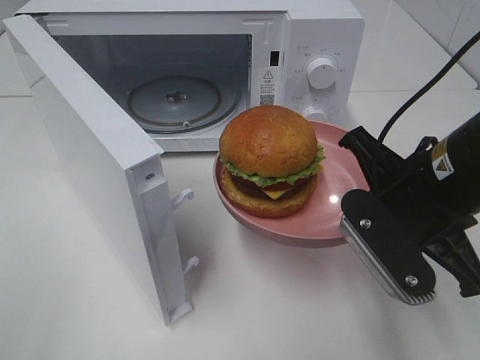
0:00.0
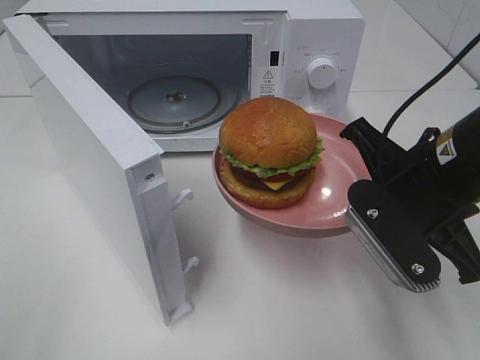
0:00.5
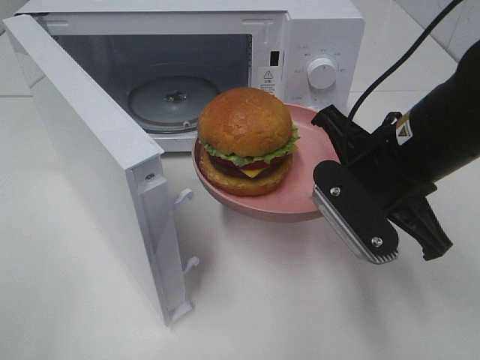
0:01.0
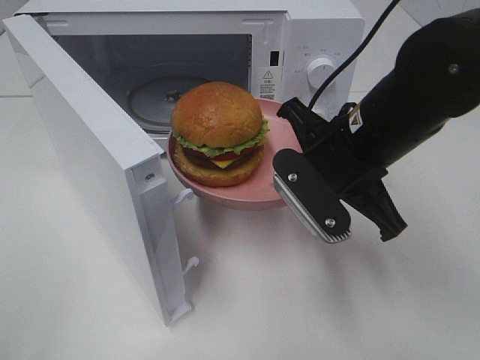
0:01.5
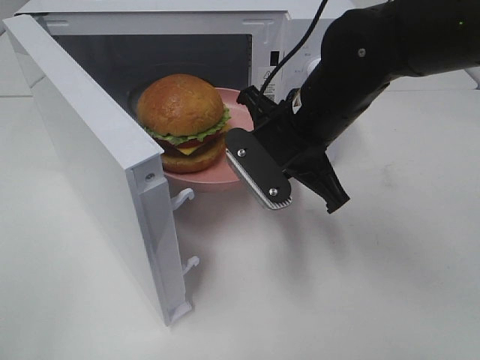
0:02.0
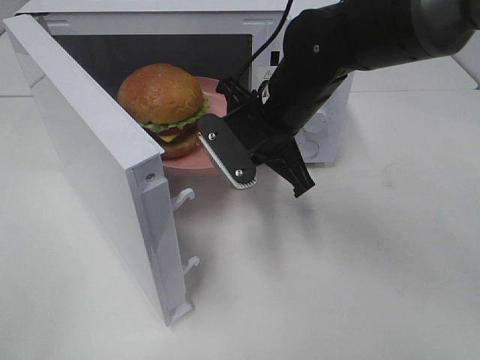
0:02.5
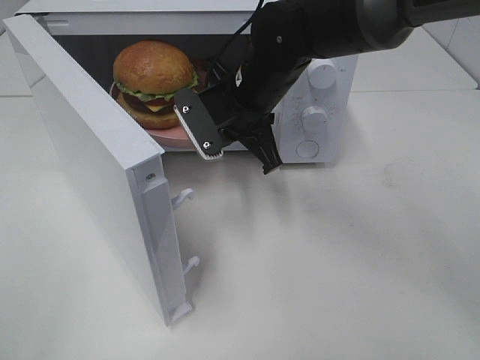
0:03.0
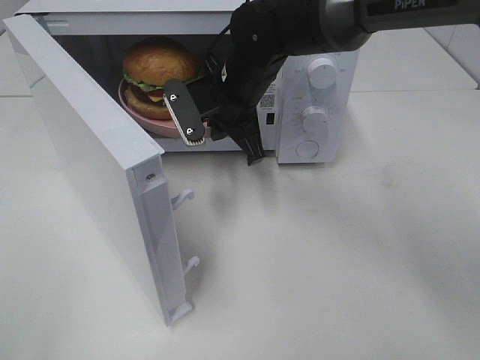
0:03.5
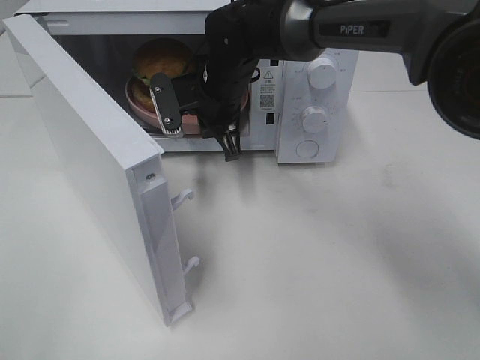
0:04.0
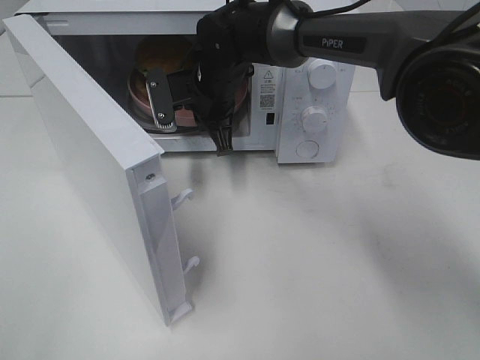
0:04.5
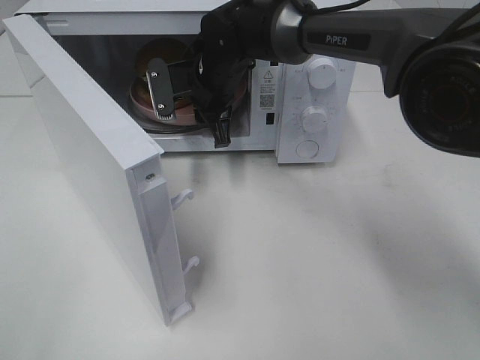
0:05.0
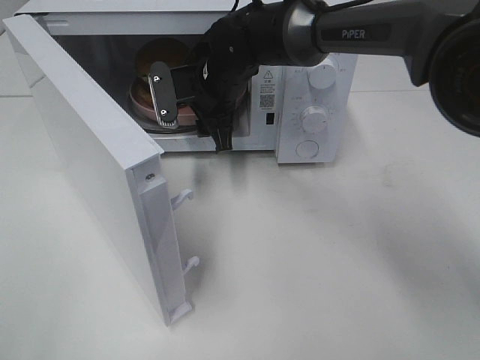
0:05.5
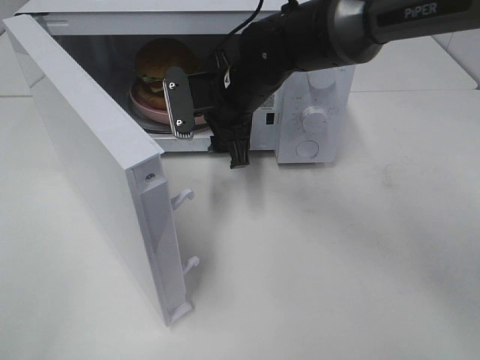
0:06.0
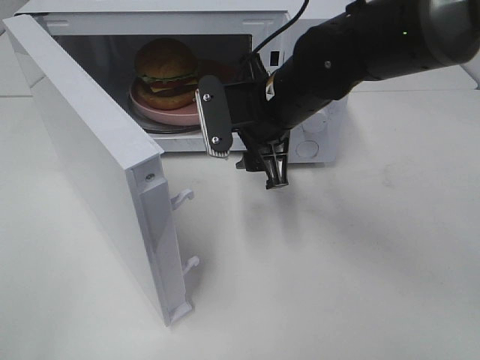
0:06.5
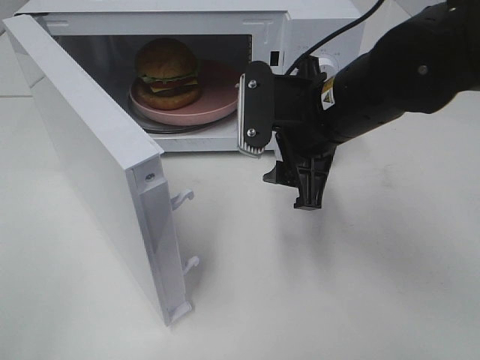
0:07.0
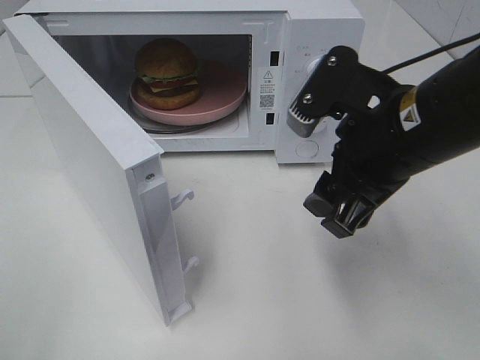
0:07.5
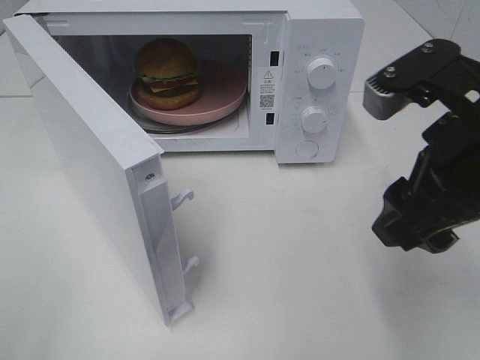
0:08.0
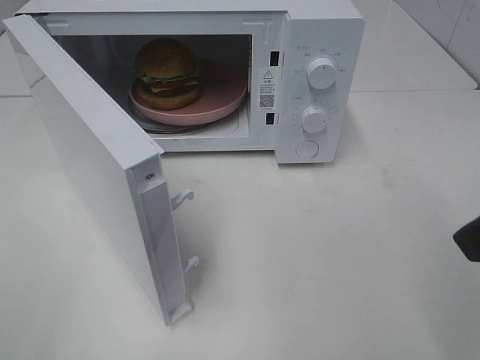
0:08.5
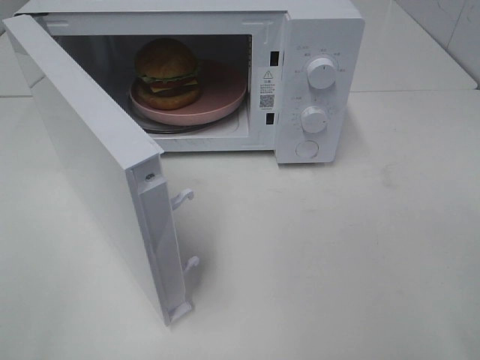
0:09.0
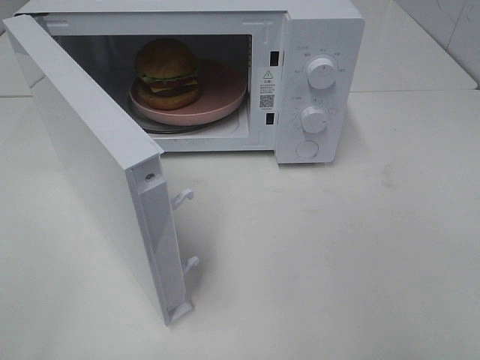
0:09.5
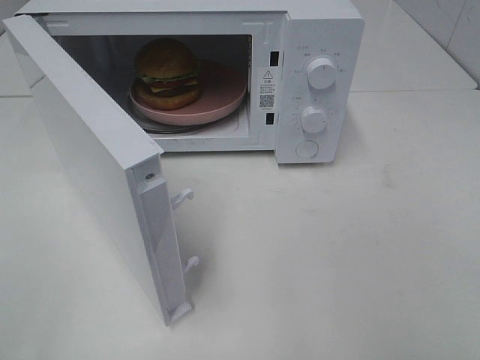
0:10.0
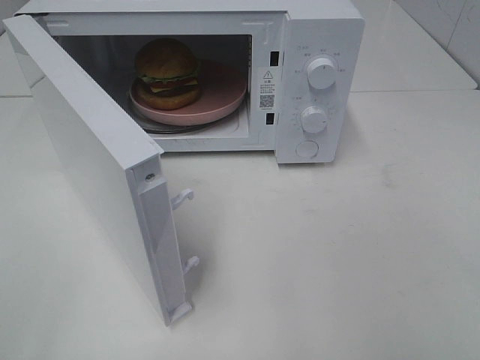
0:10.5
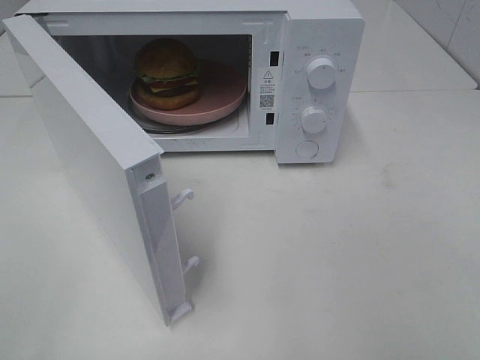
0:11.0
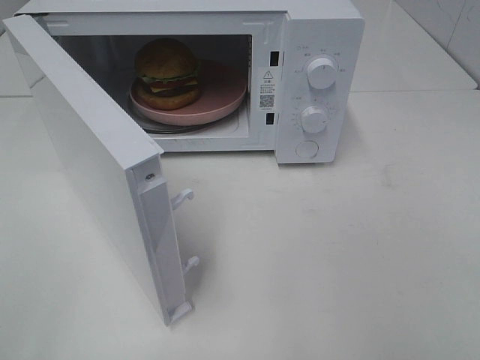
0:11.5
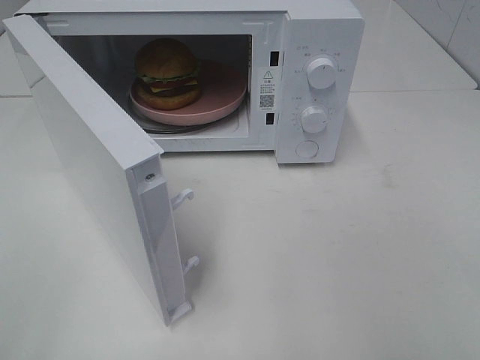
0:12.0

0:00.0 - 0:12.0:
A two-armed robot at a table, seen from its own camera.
Task of the whole recording: Heat the burger.
Step, 0:00.0 - 0:05.0: Right hand: place the plate in the microwave.
0:00.0 - 0:02.0: The right gripper goes roughly 15 cm forward and to the left.
0:02.0 - 0:04.0: The right gripper heads forward and to the left, covering some 15 cm.
0:04.0 - 0:06.0: The right gripper opens up.
0:06.0 - 0:08.0: The right gripper goes about 30 cm backward, to the right and upward.
0:08.0 - 0:10.0: The right gripper is displaced backward and to the right by about 20 cm.
0:10.0 - 0:12.0: Both grippers stay put.

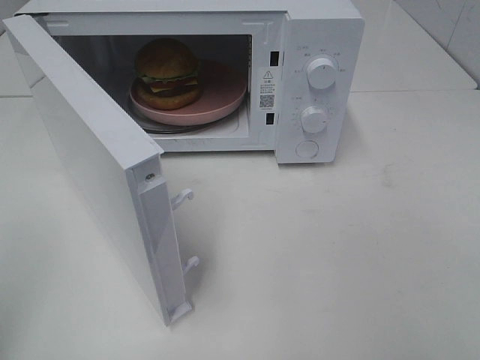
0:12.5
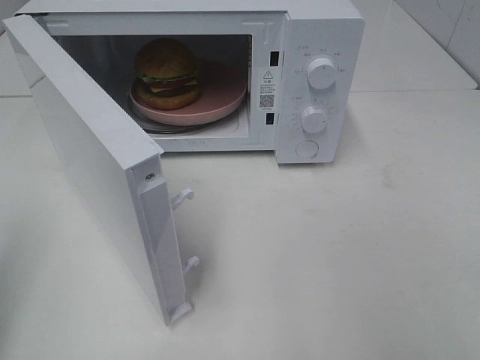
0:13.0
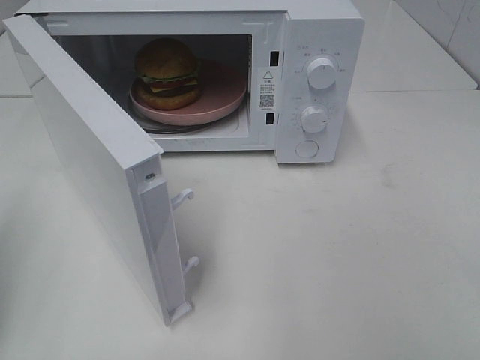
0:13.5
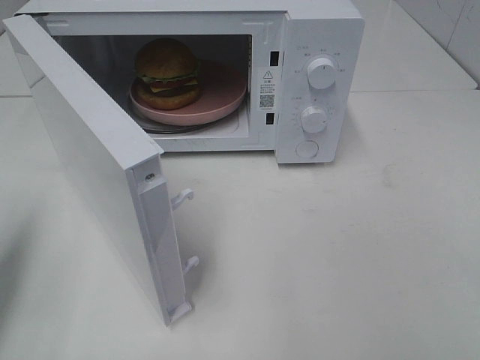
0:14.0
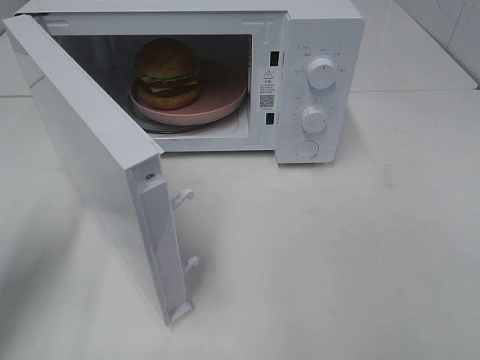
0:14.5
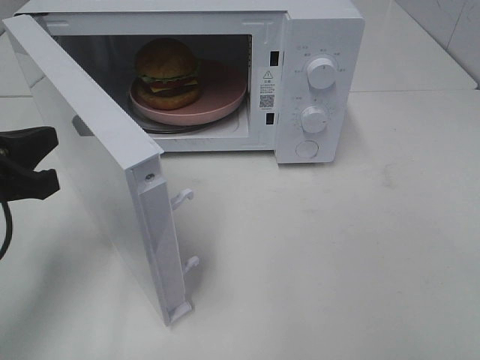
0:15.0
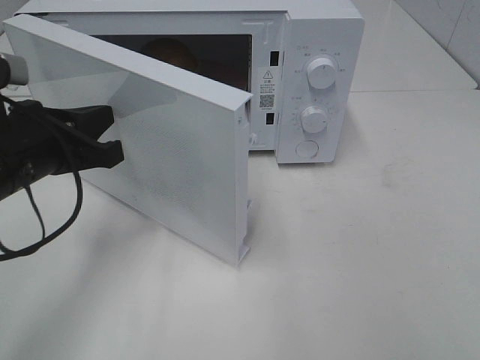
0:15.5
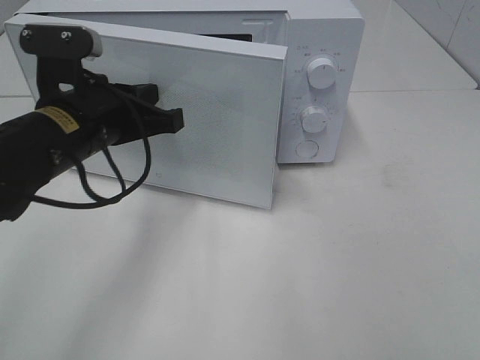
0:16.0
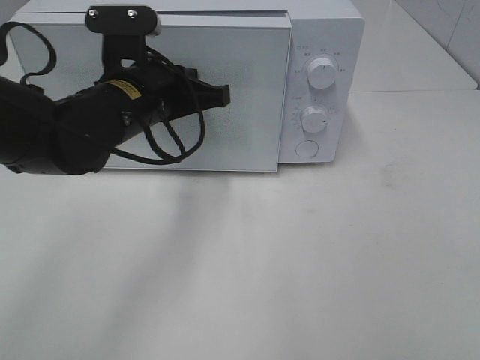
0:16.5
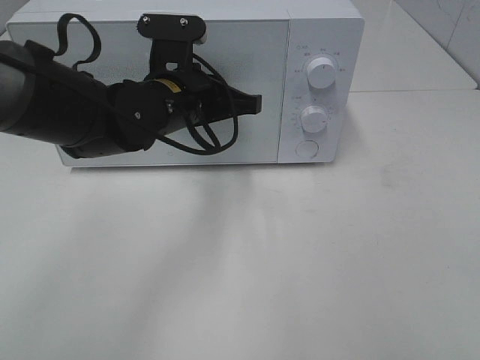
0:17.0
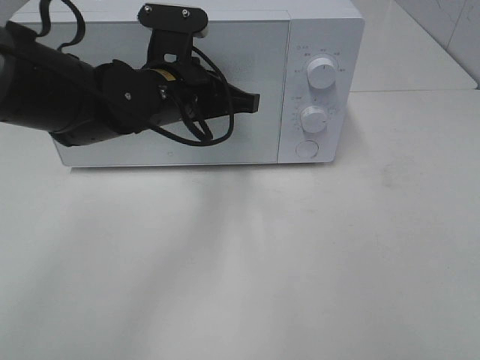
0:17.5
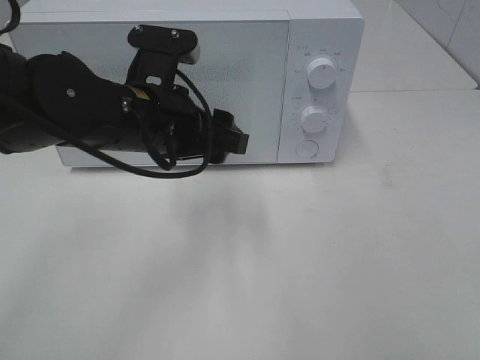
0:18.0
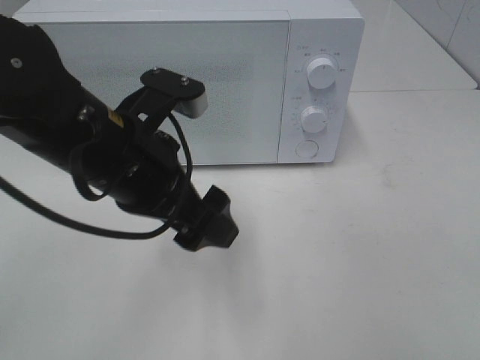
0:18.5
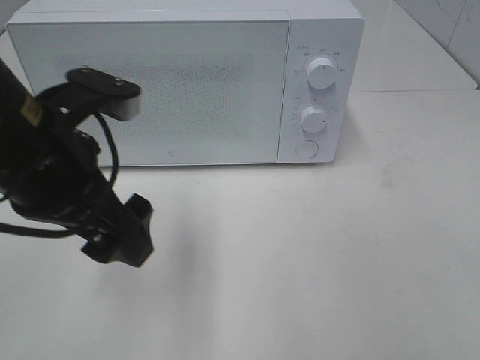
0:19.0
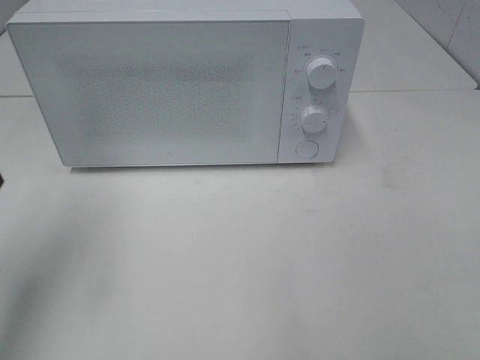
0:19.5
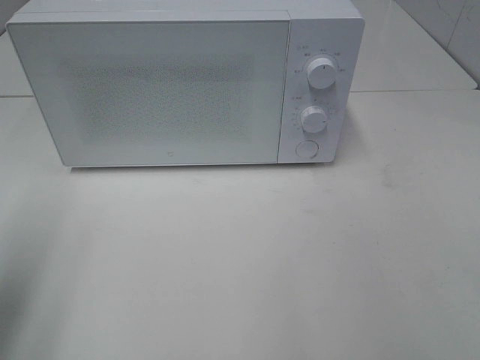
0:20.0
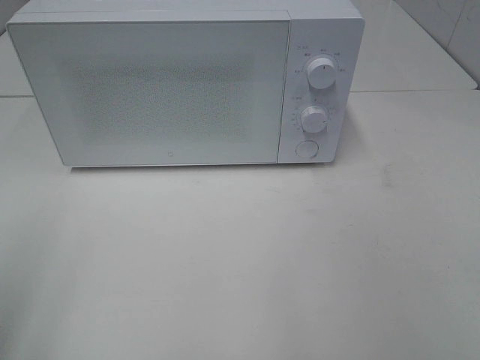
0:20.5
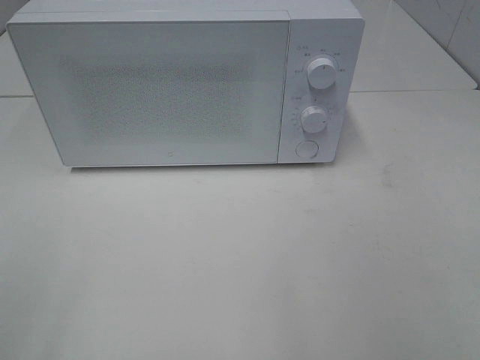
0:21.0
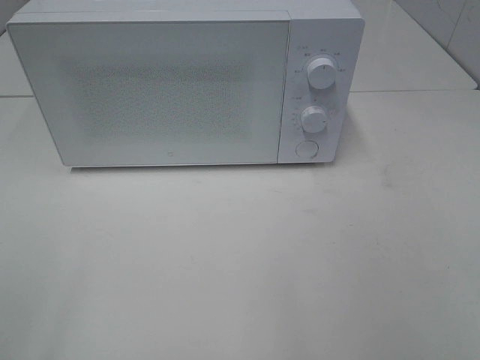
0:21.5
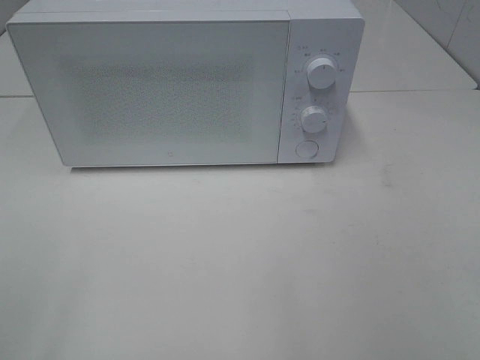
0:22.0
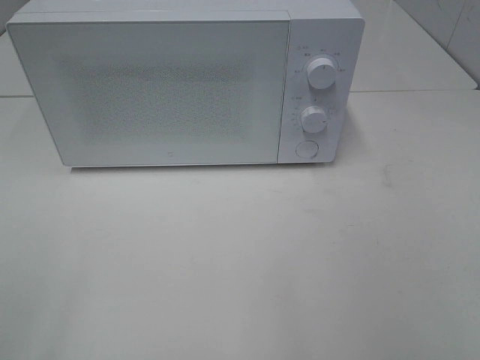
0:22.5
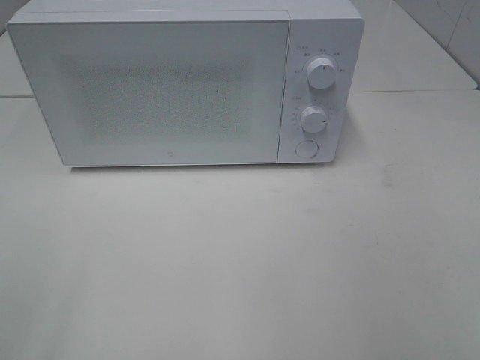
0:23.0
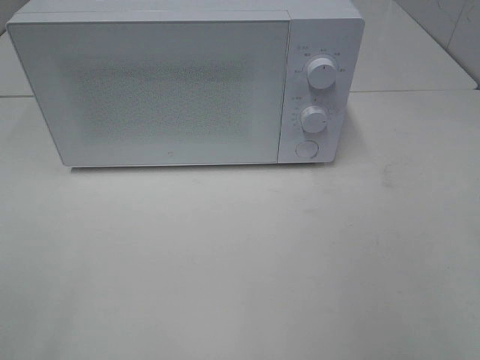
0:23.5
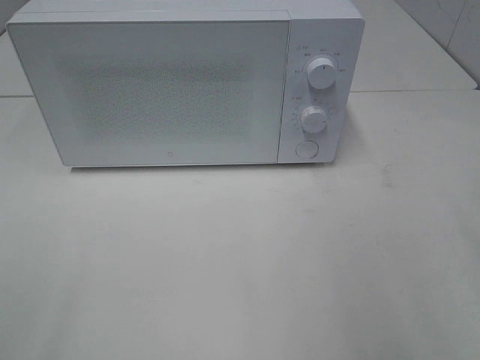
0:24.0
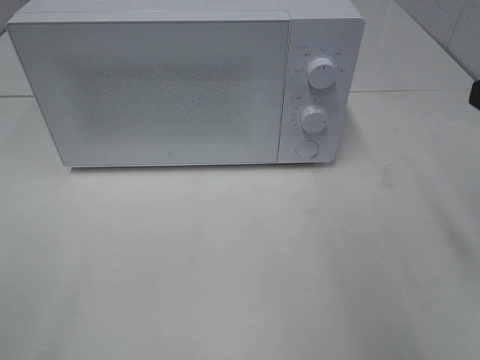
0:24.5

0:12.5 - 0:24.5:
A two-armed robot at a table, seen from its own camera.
Task of the whole recording: Heat the burger.
Step, 0:12.5 - 0:18.0: Left hand: close the microwave door.
0:12.5 - 0:14.5: The left gripper goes some 20 cm forward and downward.
0:14.5 - 0:16.5: The left gripper shifts some 25 cm to the right and forward.
0:16.5 - 0:18.5: The left gripper is displaced backward by roughly 10 cm, and opens up.
0:18.5 - 0:20.5: The left gripper moves to the left and backward, about 25 cm.

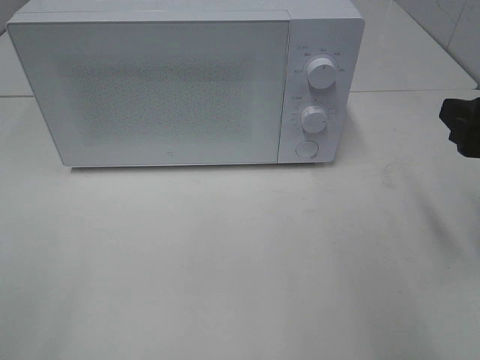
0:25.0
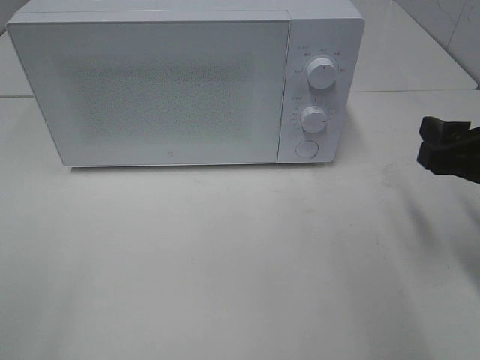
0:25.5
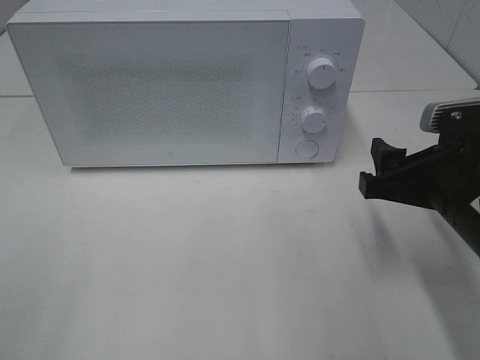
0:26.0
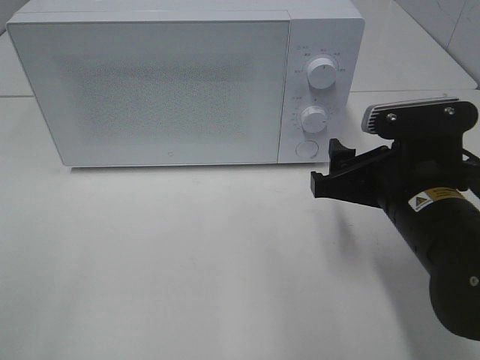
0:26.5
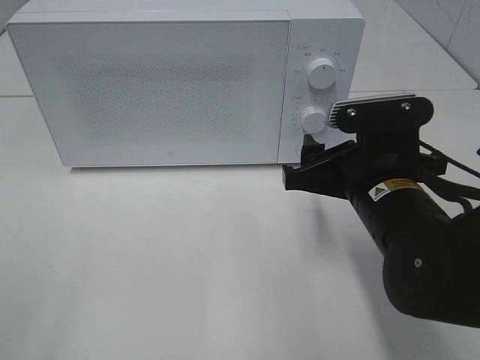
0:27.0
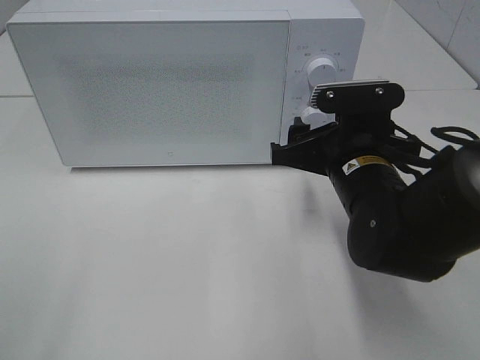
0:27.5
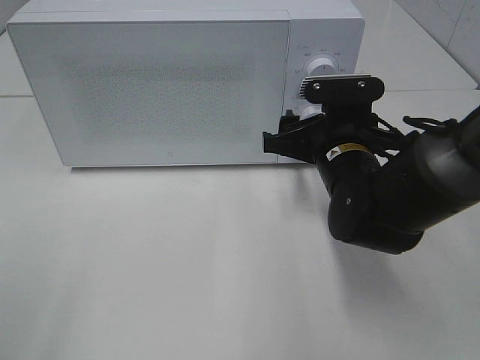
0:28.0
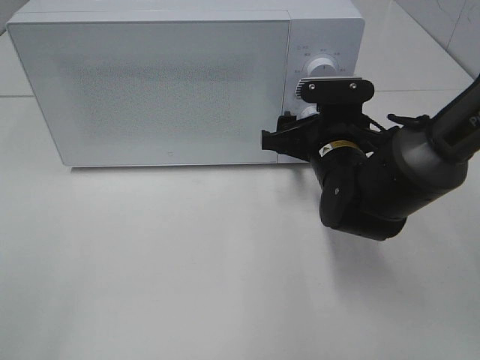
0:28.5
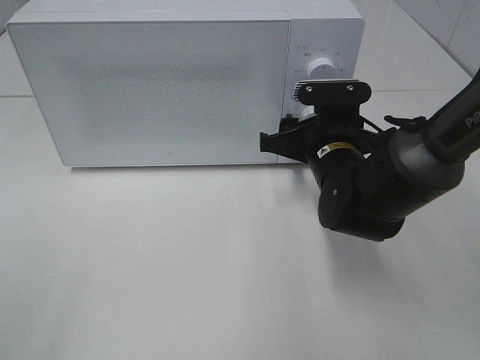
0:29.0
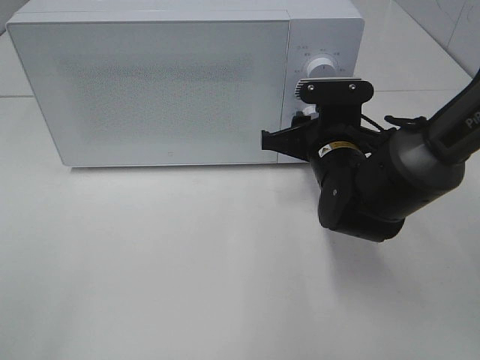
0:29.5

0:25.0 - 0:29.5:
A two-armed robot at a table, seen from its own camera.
Task of the whole recording: Heat the burger.
0:25.0 - 0:27.0: The right gripper is displaced to the left and downward by some 15 cm.
0:27.0 - 0:29.5: The right gripper moves forward, some 10 cm, and closes its fingers.
